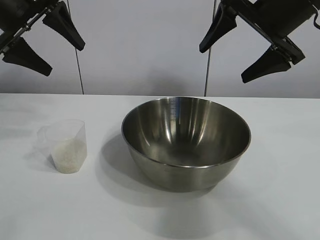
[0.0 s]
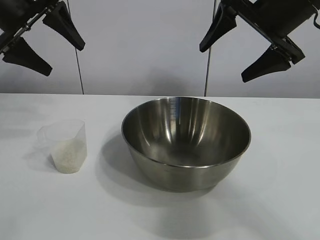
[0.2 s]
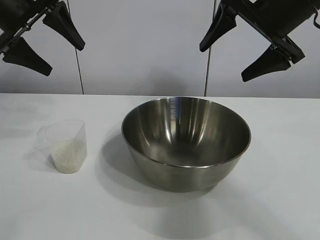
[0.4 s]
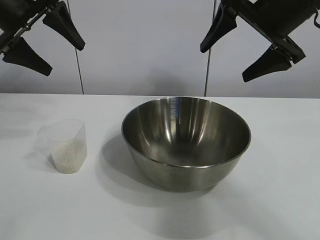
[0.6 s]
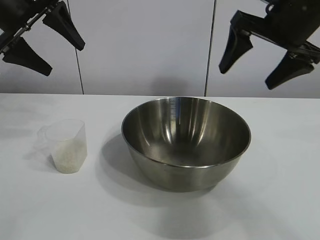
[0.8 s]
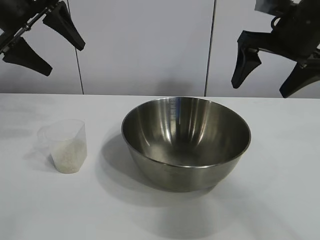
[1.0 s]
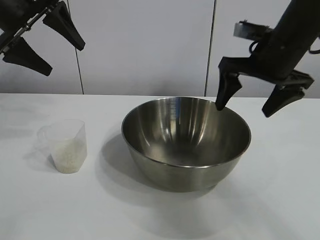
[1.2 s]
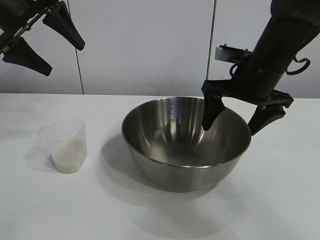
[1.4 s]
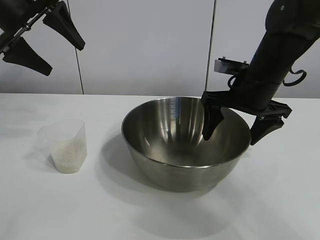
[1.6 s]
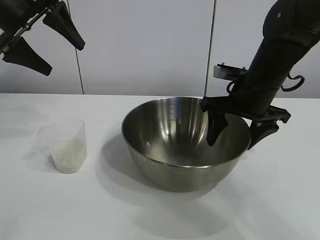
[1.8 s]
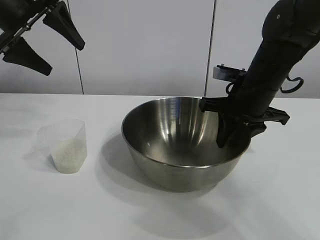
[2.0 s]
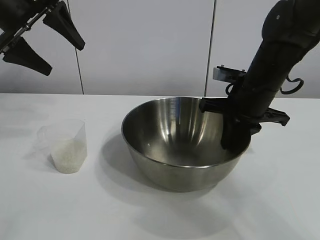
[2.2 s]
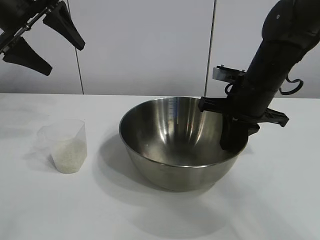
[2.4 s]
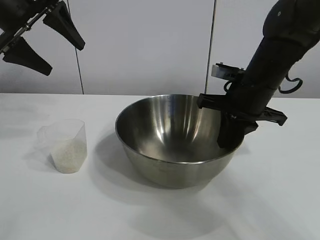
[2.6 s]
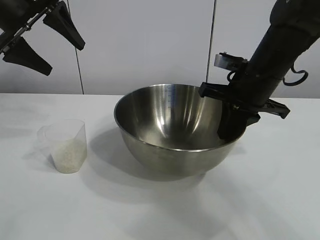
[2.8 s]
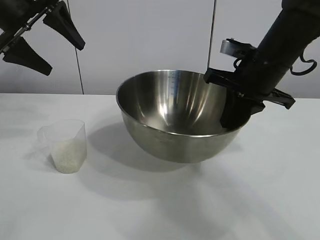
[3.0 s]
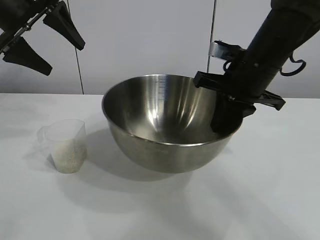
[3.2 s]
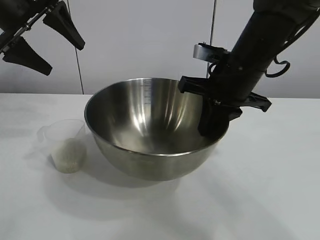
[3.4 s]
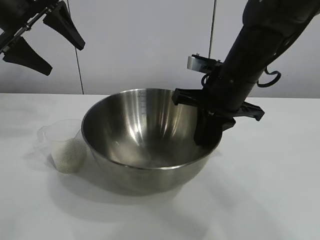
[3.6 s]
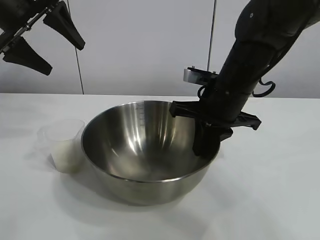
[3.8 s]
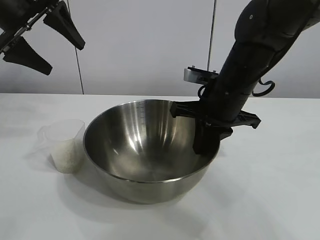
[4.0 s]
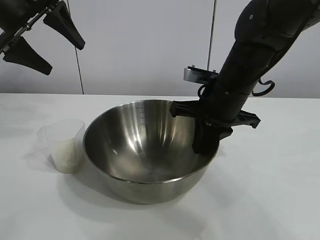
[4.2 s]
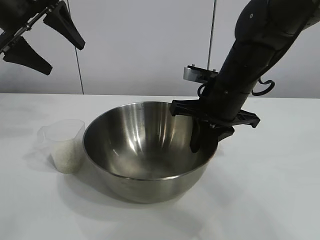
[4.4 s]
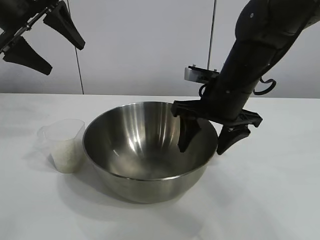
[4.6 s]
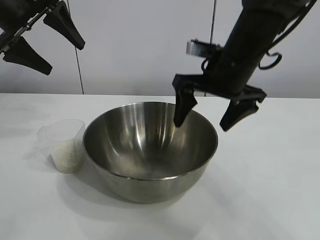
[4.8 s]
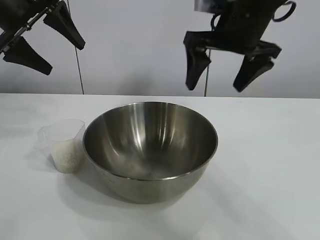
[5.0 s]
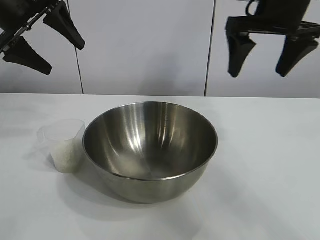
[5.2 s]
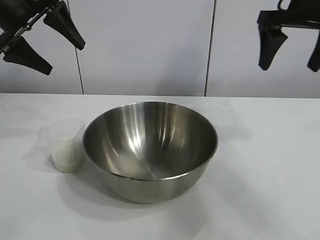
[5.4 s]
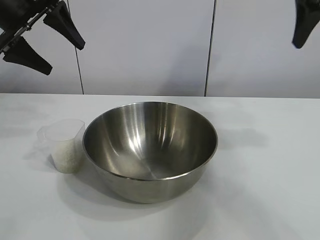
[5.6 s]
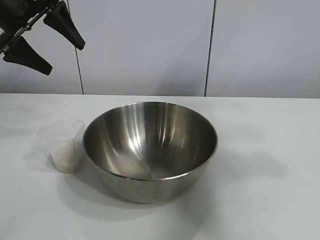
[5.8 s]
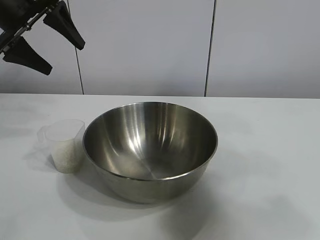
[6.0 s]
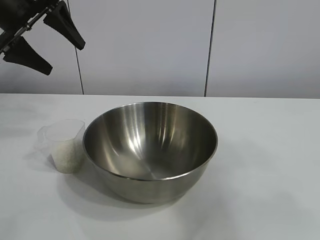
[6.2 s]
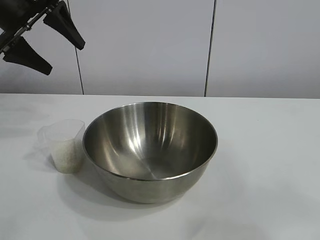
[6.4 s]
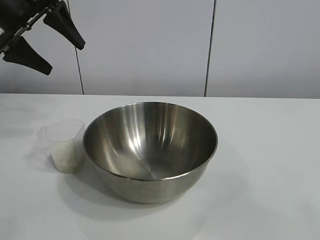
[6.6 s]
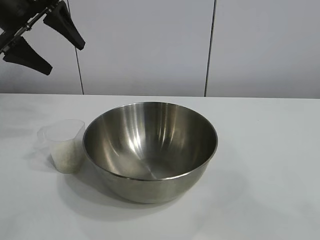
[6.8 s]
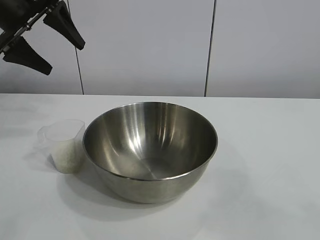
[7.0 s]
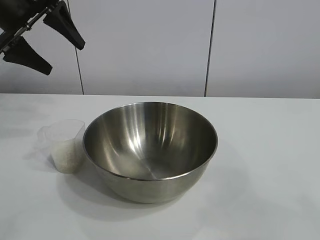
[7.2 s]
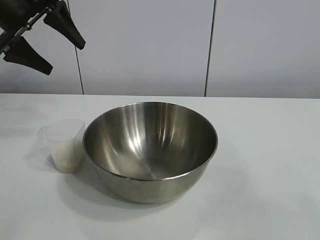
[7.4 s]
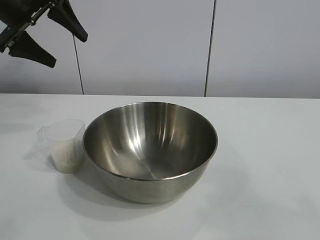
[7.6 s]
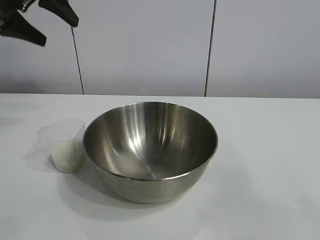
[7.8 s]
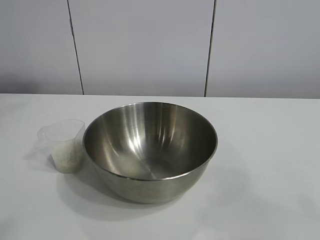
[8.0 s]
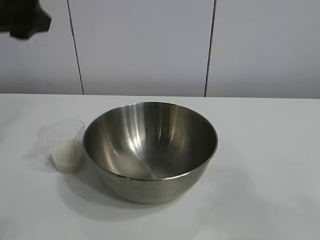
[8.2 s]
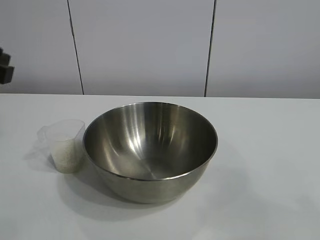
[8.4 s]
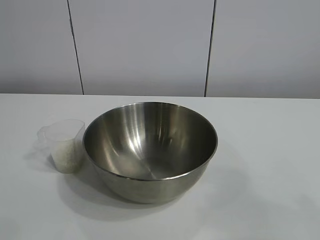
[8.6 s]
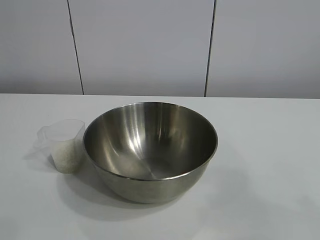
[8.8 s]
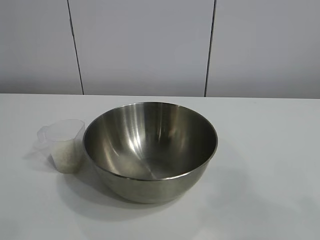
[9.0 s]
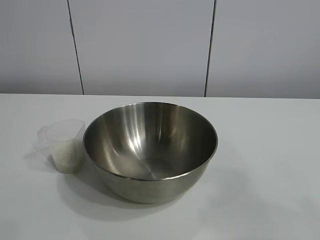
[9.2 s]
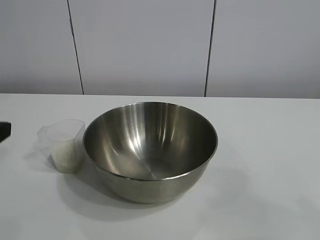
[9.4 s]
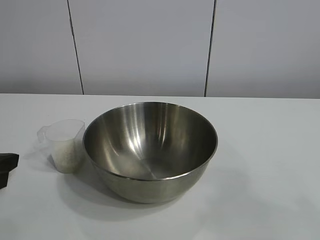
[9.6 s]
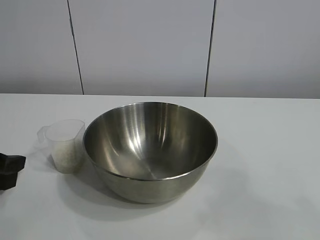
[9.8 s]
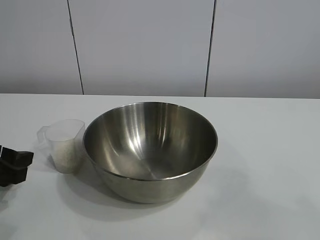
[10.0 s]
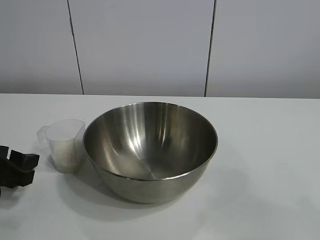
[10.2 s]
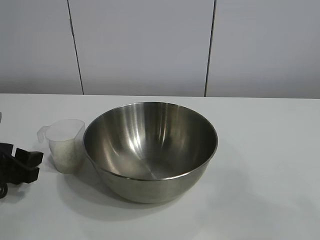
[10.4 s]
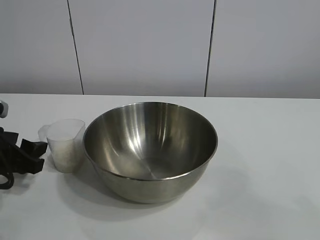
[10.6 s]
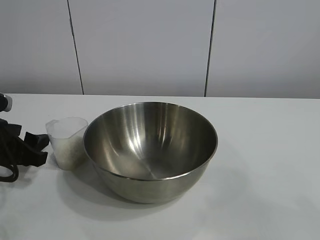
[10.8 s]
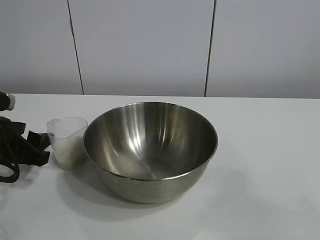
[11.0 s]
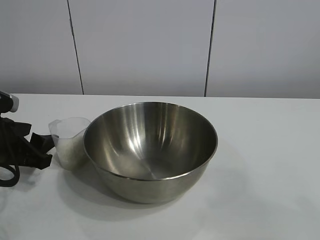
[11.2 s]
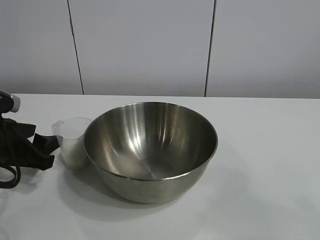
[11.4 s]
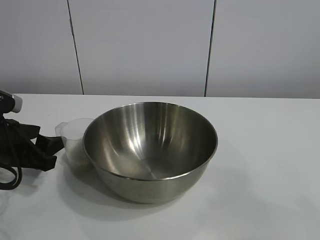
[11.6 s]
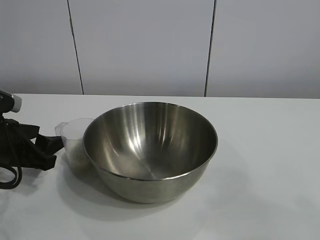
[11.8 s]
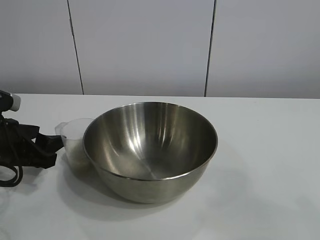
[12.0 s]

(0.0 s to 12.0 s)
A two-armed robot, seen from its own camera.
Task of the whole recording: the right gripper grasp the rice container and place it in the center of the table, the left gripper grasp the rice scoop and pour the rice into the rice container.
Step, 0.8 s - 4.4 s: Move the bowl in the center of view with right gripper.

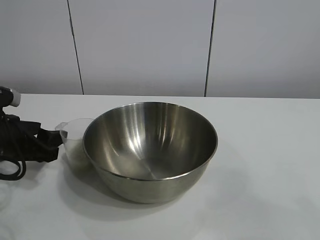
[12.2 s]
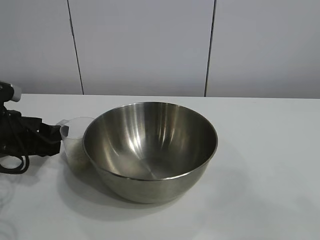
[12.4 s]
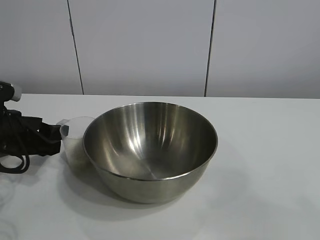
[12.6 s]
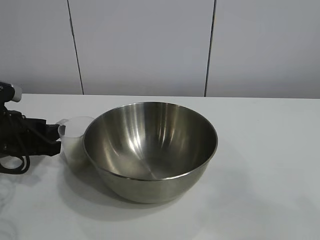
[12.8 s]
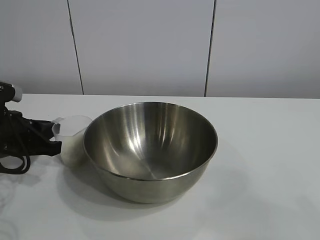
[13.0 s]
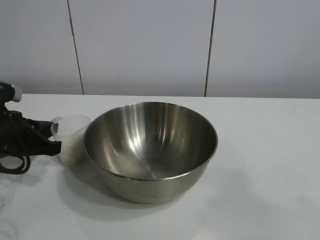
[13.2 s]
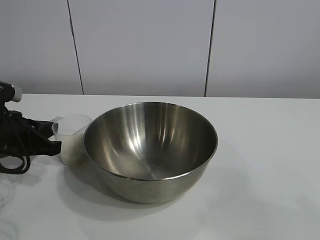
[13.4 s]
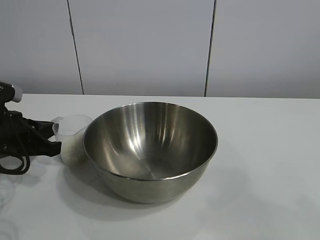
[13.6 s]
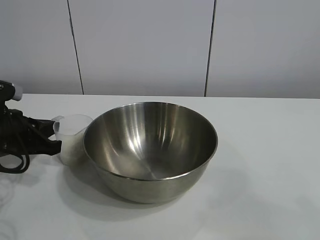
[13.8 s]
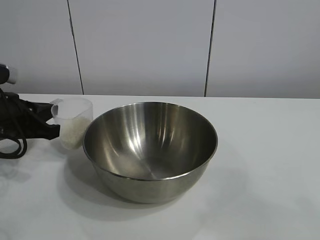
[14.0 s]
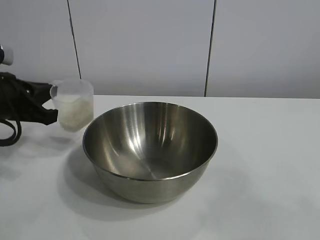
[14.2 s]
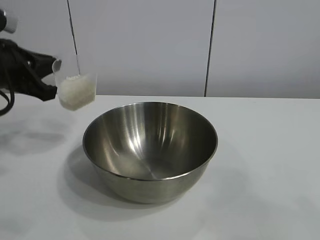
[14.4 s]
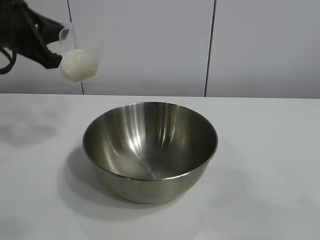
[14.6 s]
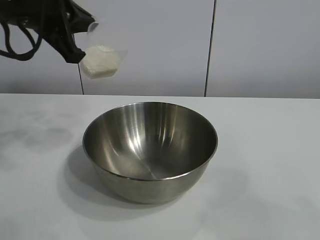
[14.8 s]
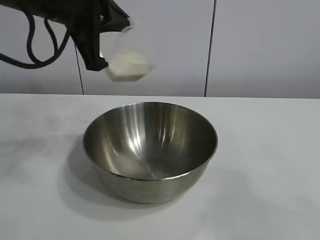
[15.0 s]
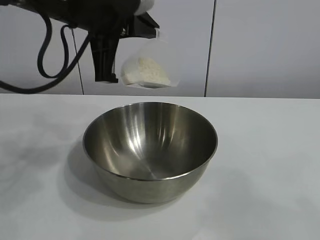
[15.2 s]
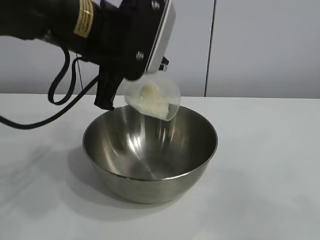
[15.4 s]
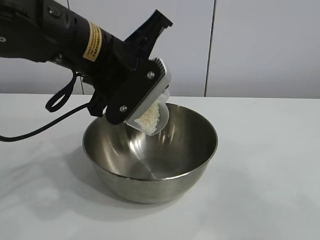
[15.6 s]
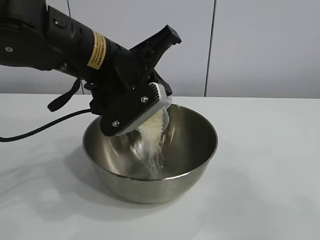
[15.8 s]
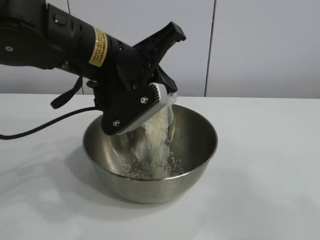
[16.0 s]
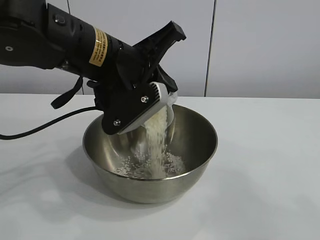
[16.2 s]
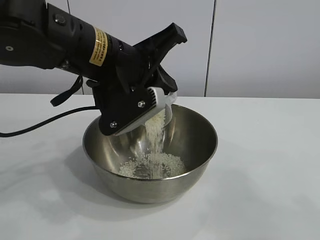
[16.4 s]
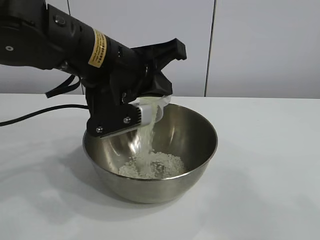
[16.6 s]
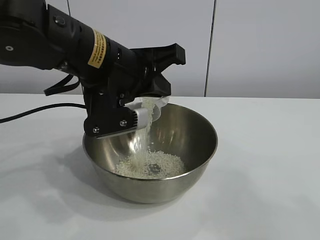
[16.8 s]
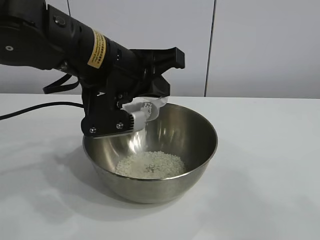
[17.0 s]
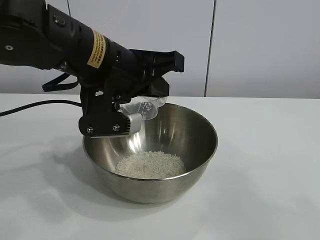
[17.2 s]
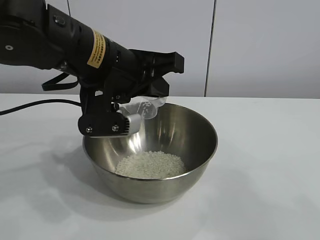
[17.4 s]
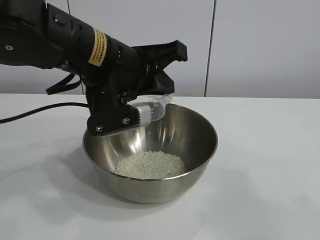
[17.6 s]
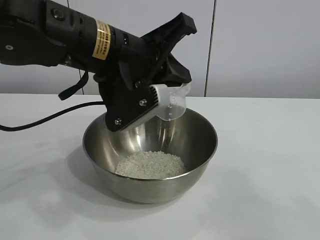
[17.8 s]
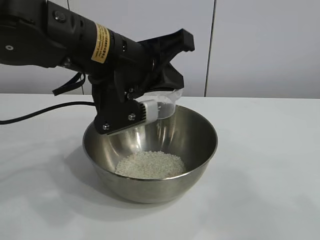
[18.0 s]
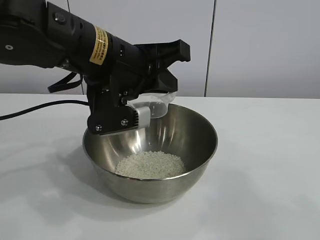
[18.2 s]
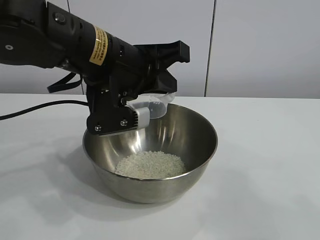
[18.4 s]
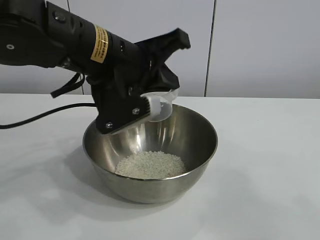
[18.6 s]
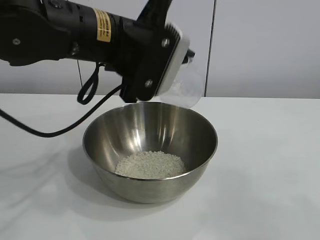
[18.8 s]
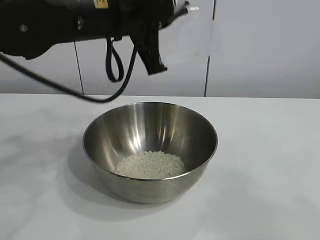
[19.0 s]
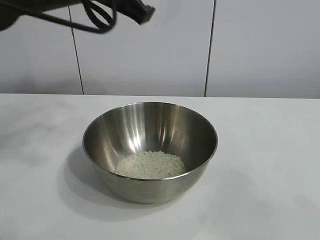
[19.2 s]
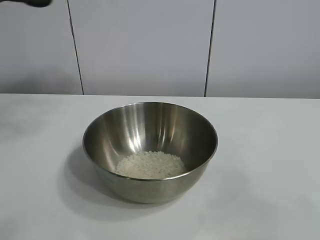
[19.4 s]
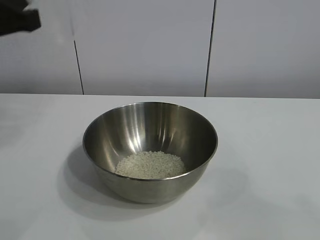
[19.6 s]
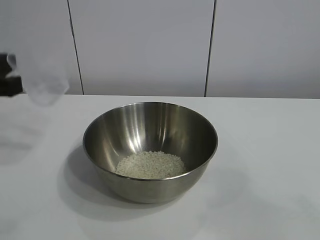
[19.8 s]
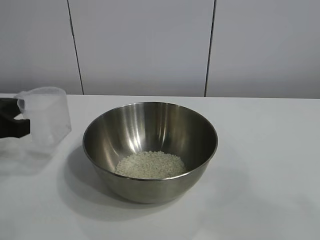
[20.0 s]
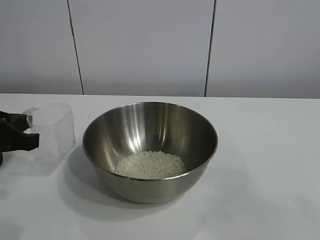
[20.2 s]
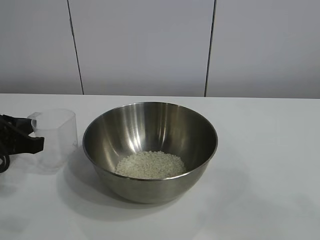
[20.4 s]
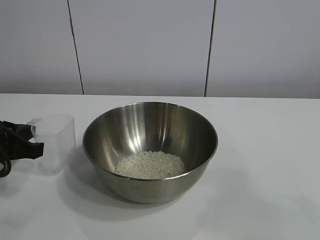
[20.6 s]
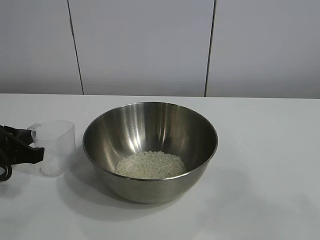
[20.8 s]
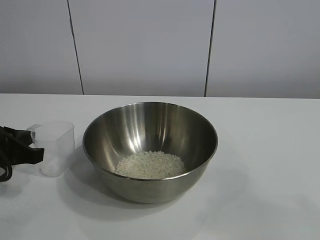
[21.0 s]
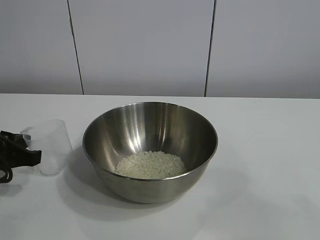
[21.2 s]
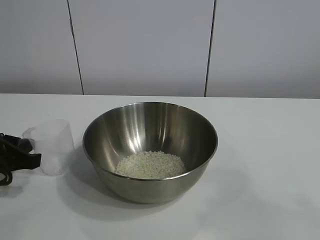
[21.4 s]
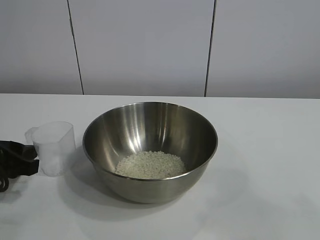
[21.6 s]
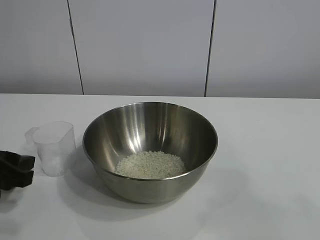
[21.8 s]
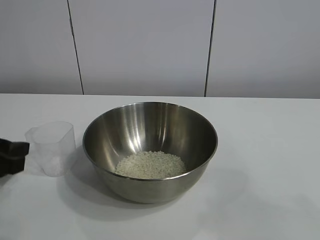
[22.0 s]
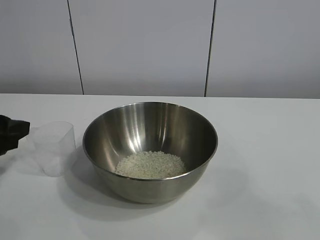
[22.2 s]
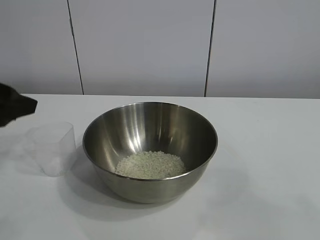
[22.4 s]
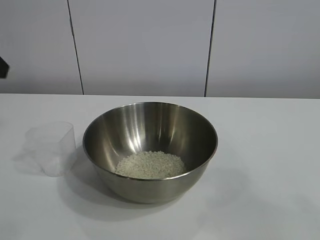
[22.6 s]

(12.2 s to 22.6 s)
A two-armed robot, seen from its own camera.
Task of the whole recording: the right gripper grasp the rice container and place it in the center of the table, the left gripper grasp the rice scoop and pour the rice into the rice container.
Step, 13.6 s - 18.2 s: Pour the rice from the cup into the bowl with the left gripper.
Step, 18.4 s - 21.6 s: Place the cup on the table with the left gripper.
